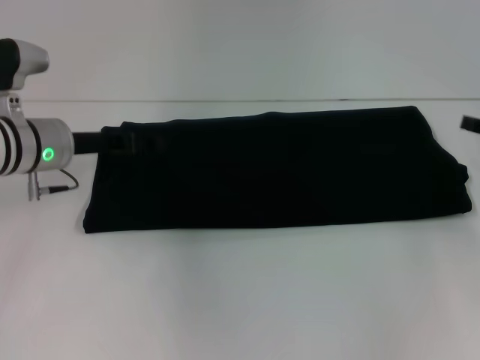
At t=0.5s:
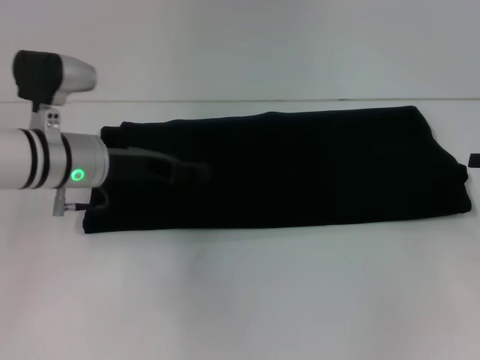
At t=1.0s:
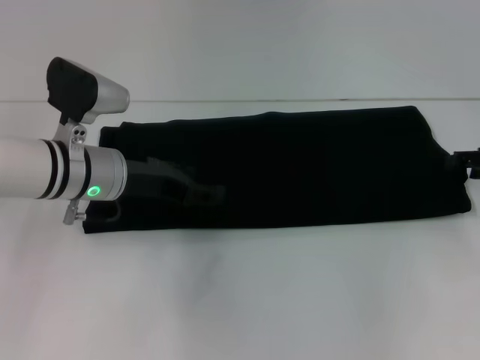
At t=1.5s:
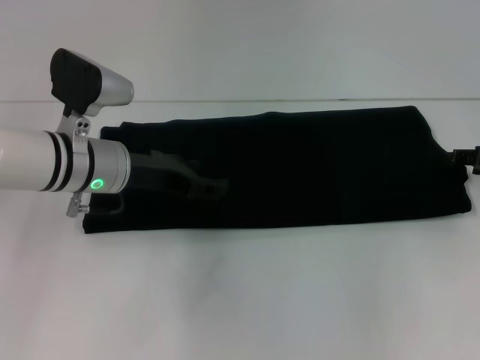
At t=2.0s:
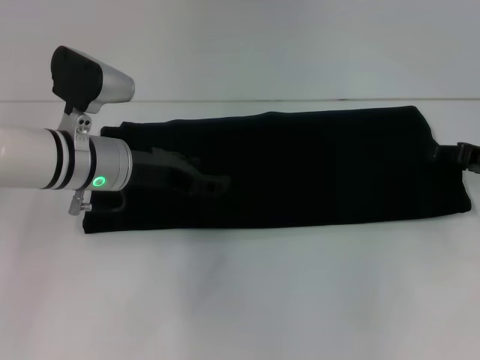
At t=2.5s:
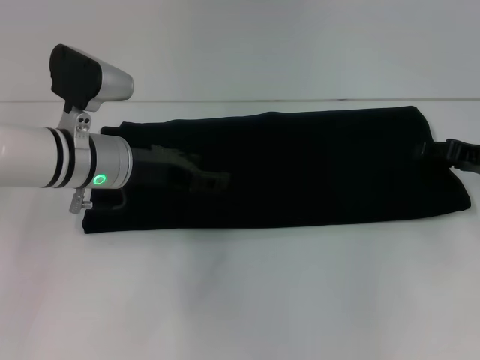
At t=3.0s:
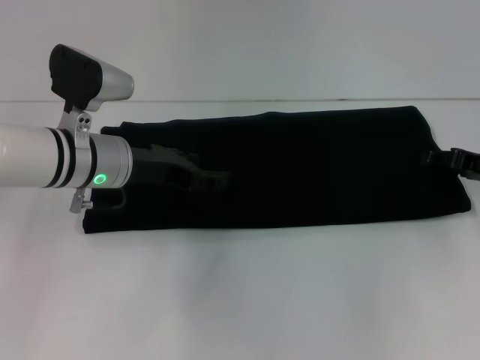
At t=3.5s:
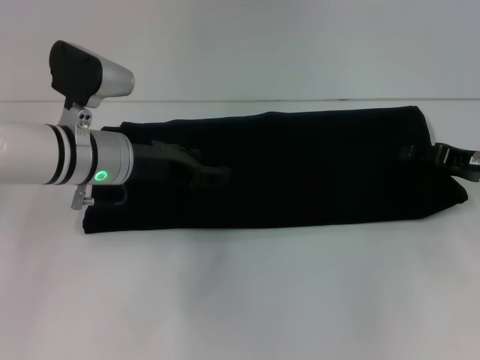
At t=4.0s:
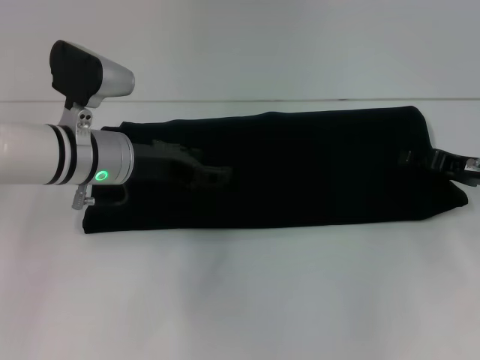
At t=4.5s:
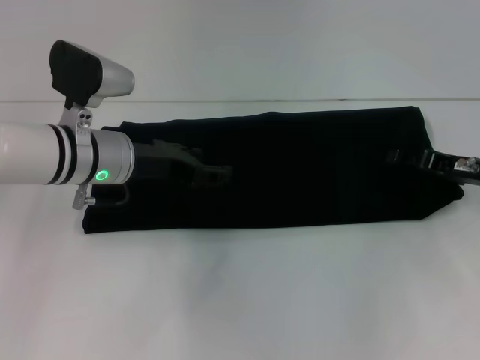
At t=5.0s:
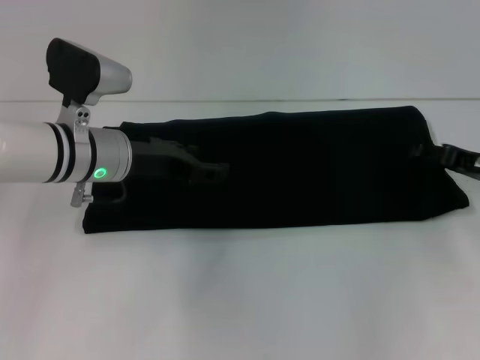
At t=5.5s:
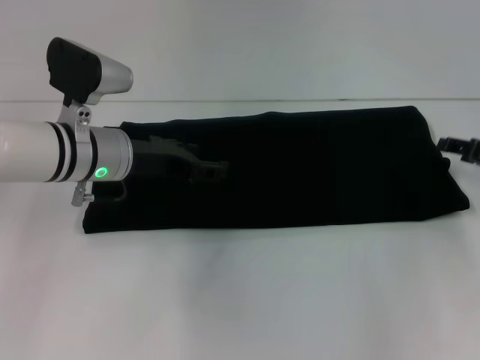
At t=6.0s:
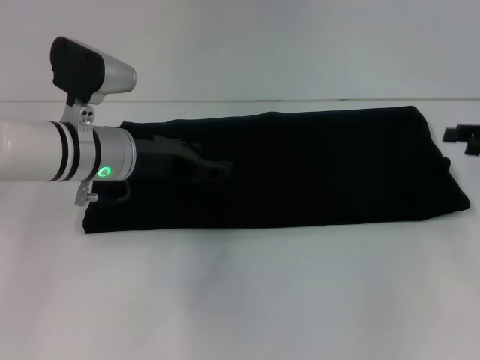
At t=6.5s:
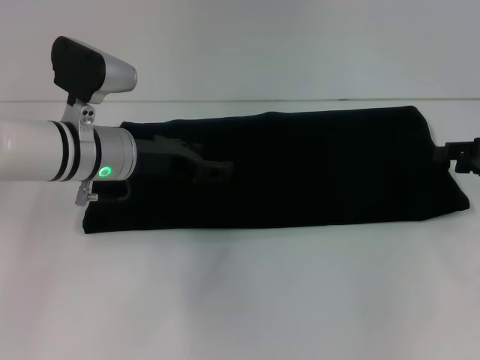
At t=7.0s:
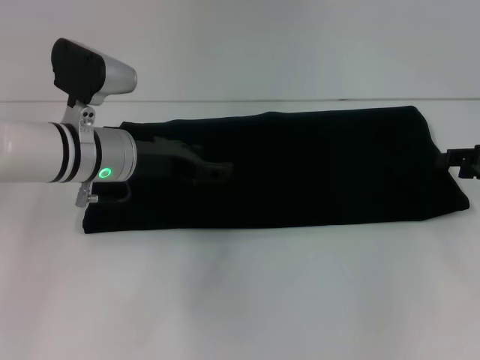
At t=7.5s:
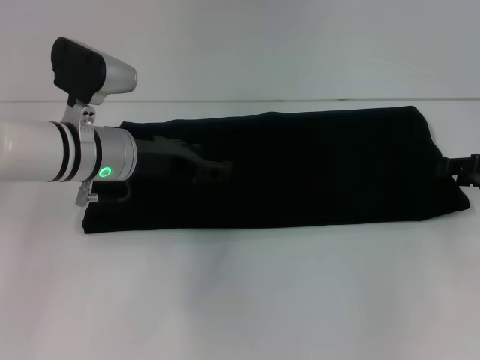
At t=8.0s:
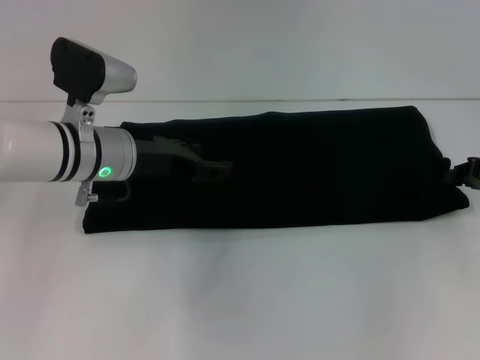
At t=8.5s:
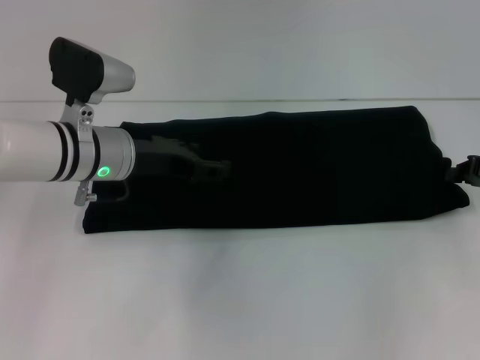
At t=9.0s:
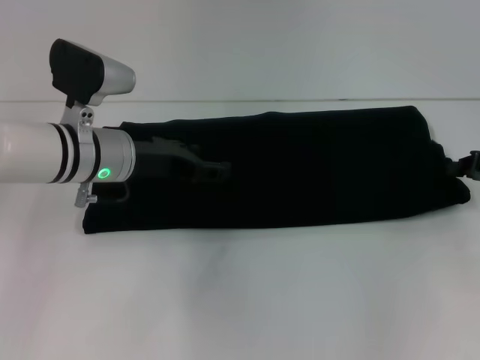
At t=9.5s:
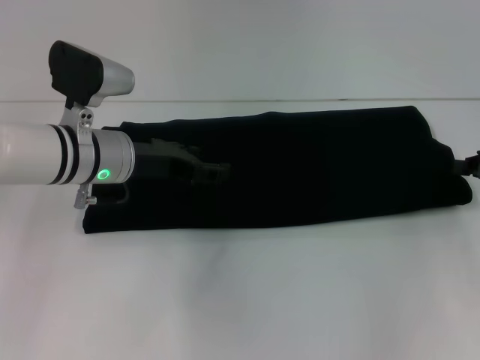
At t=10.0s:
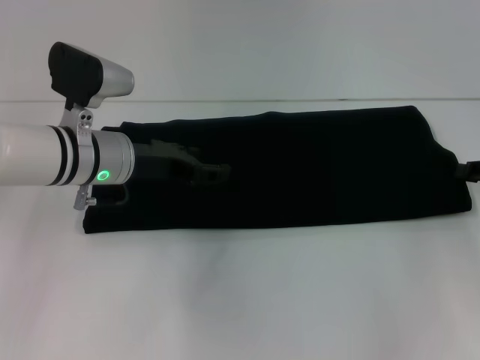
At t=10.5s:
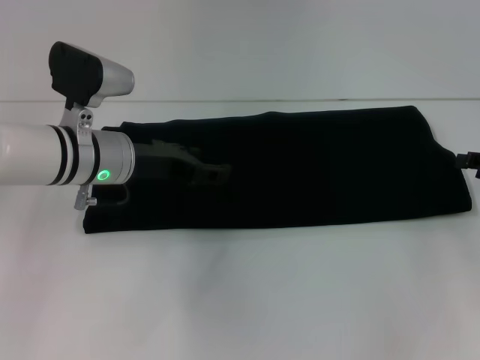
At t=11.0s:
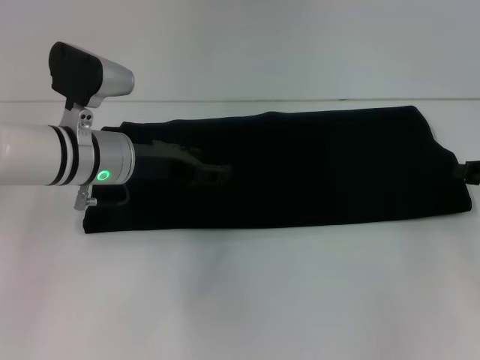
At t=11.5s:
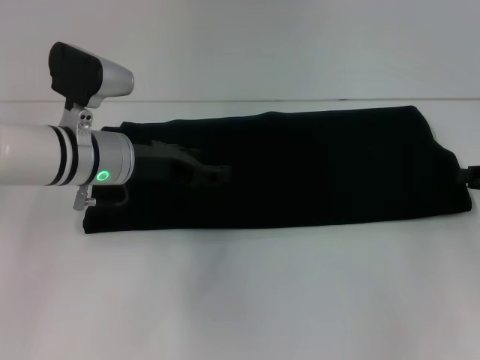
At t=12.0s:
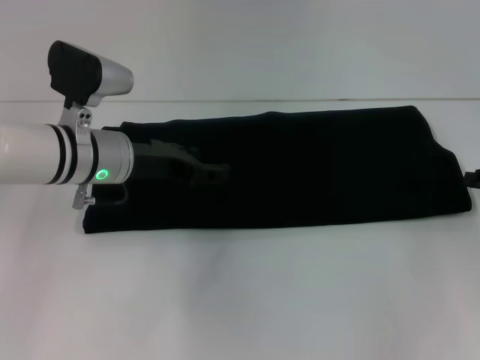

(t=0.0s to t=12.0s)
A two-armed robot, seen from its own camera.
t=0.0s - t=2.0s: The left gripper moves to the right, about 5 cm.
t=2.0s - t=4.0s: The grippers make only small movements.
t=4.0s - t=6.0s: The right gripper is displaced to the right by roughly 5 cm.
t=6.0s - t=12.0s: The grippers stay close to where they were, moving slightly.

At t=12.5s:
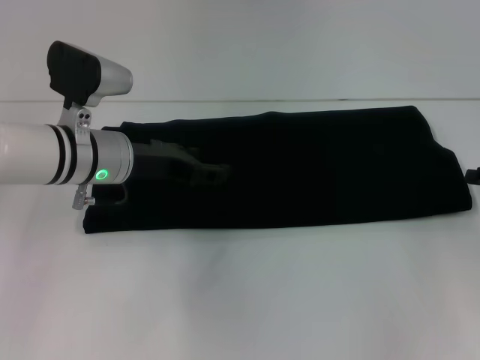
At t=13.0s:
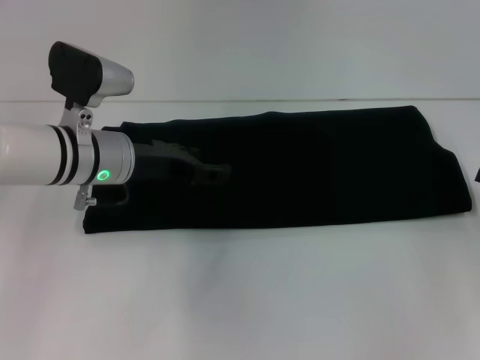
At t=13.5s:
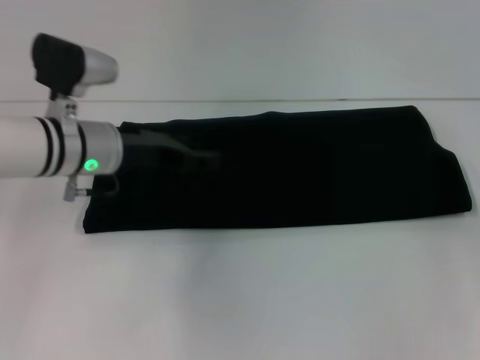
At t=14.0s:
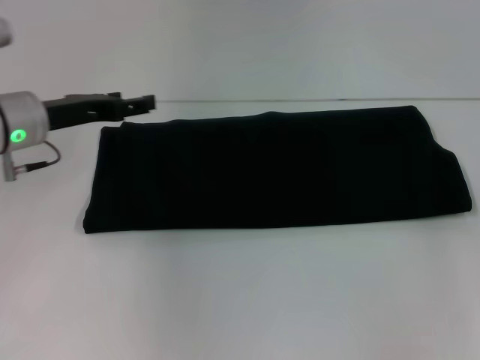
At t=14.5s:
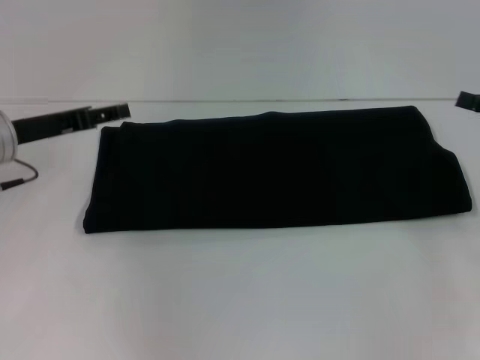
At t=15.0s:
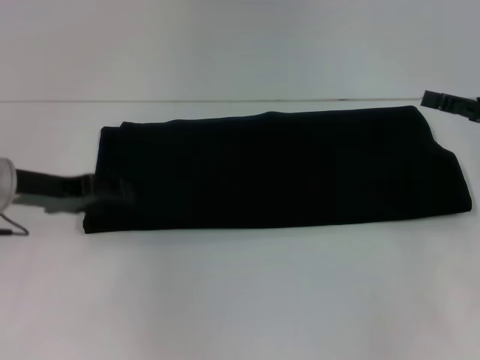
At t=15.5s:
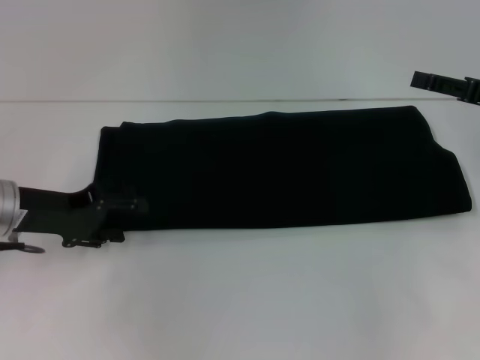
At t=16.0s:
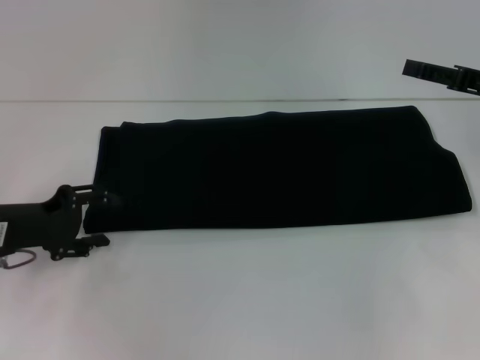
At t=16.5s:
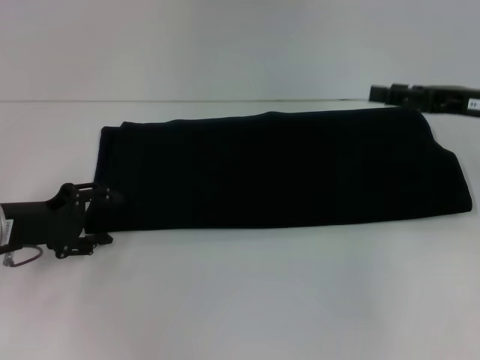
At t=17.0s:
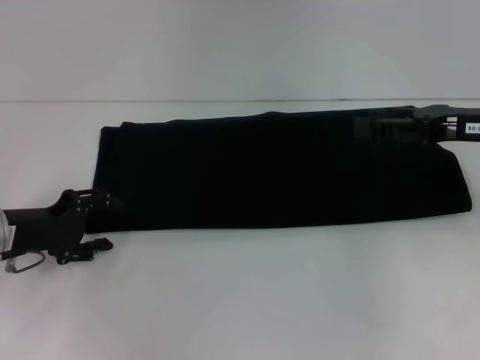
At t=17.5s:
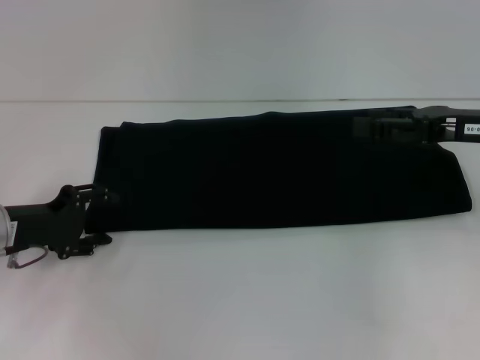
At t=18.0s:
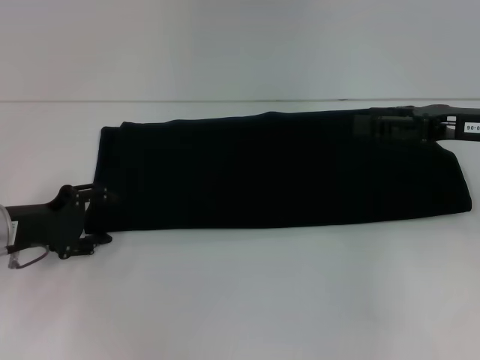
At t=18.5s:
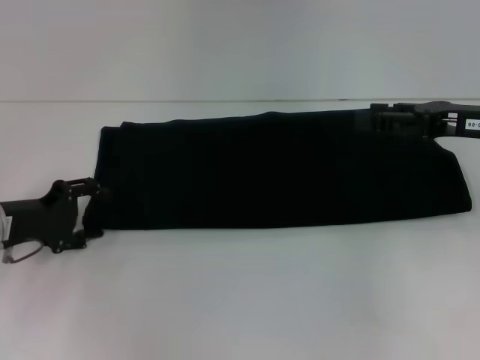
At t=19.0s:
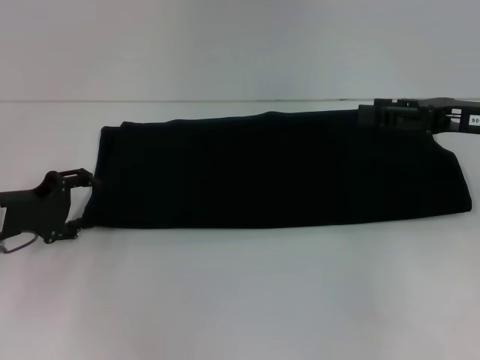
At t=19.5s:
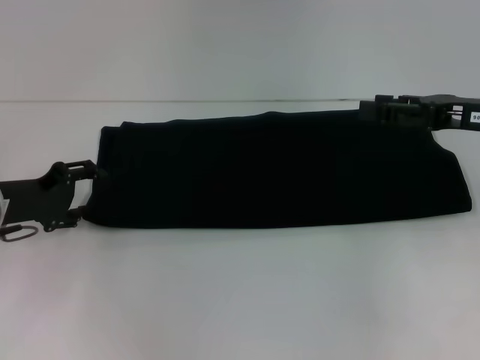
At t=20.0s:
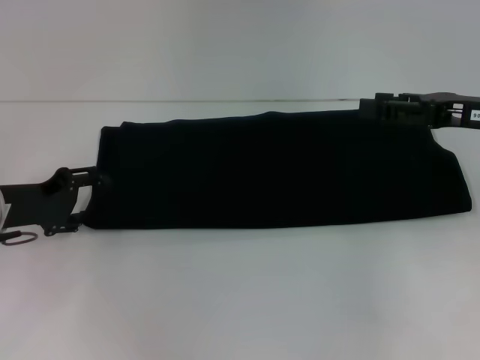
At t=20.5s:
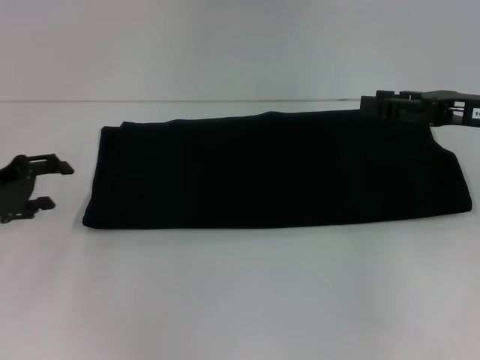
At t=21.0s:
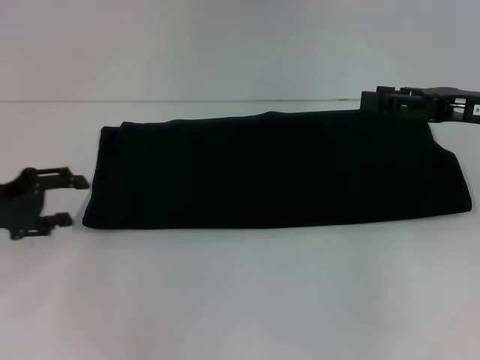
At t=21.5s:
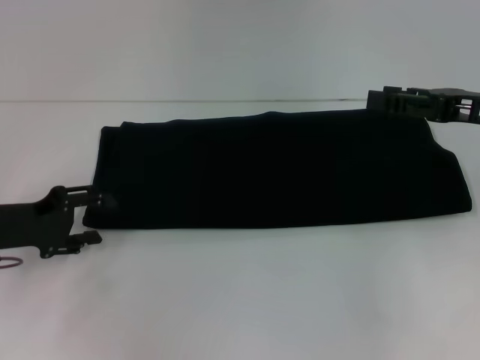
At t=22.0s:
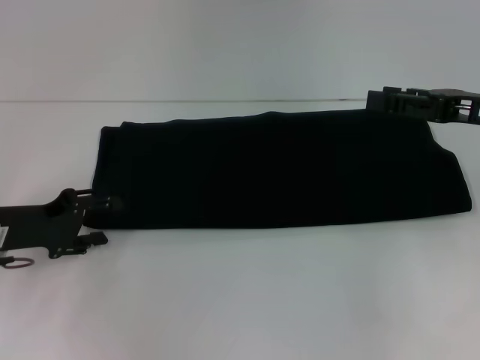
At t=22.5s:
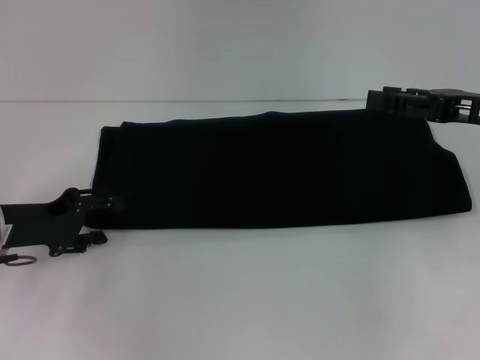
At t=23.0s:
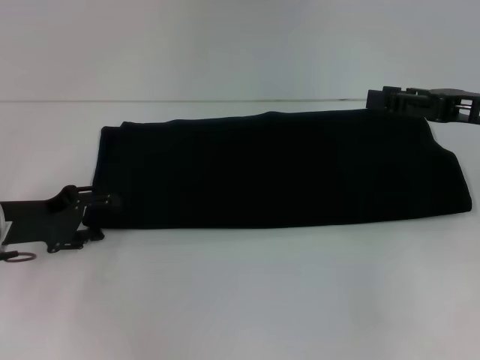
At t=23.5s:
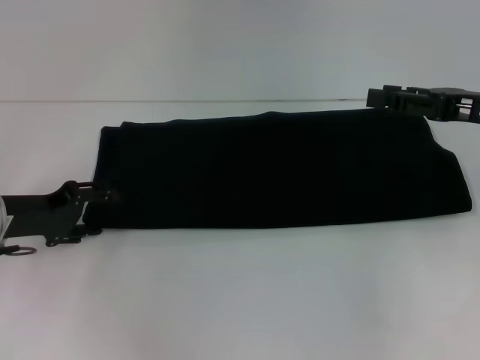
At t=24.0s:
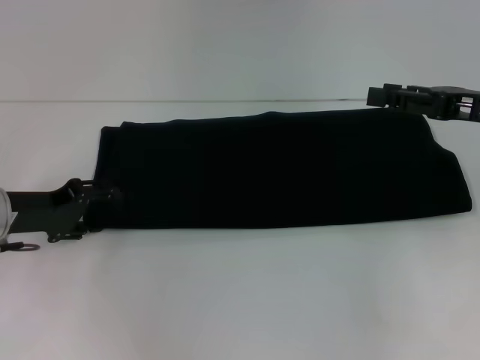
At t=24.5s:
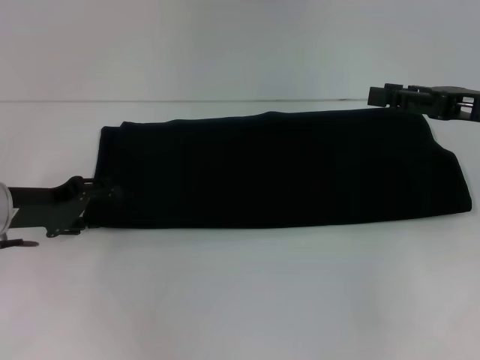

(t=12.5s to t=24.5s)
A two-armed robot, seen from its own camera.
t=12.5s - t=14.5s: The right gripper is displaced upward by approximately 5 cm, and opens, while the left gripper heads to the left, covering roughly 10 cm.
t=14.5s - t=16.5s: The left gripper travels downward and backward by approximately 10 cm. Meanwhile the right gripper goes approximately 5 cm to the left.
t=16.5s - t=18.5s: The grippers stay close to where they were, moving slightly.
t=18.5s - t=20.5s: The left gripper ends up roughly 5 cm from where it was.
t=20.5s - t=24.5s: The grippers move only a little.

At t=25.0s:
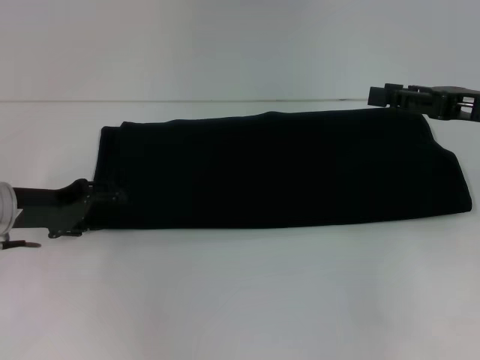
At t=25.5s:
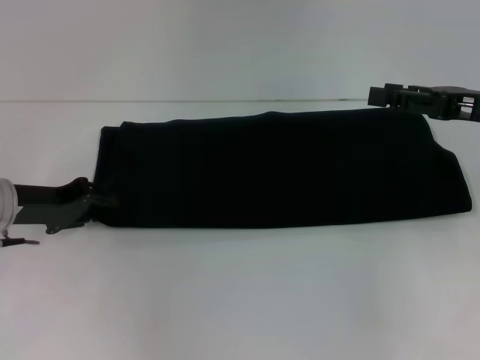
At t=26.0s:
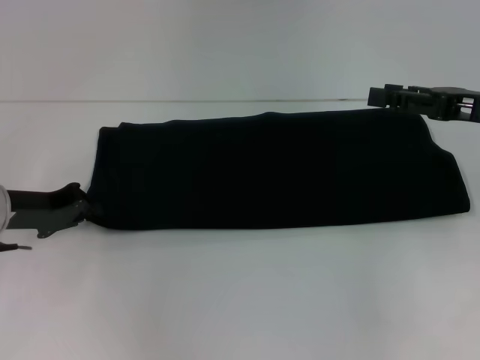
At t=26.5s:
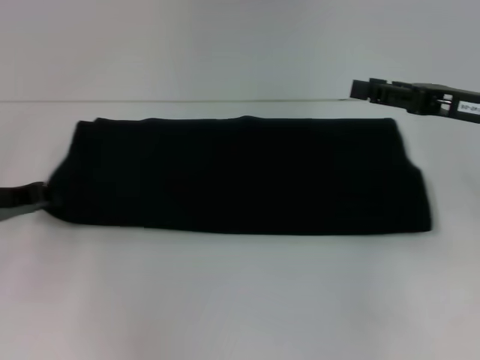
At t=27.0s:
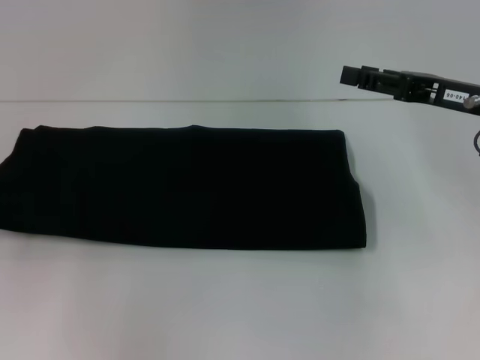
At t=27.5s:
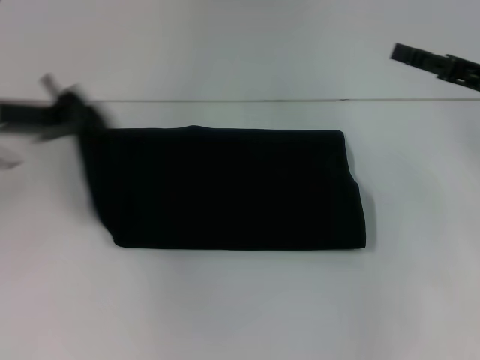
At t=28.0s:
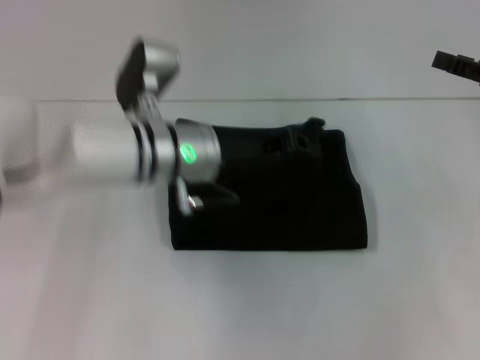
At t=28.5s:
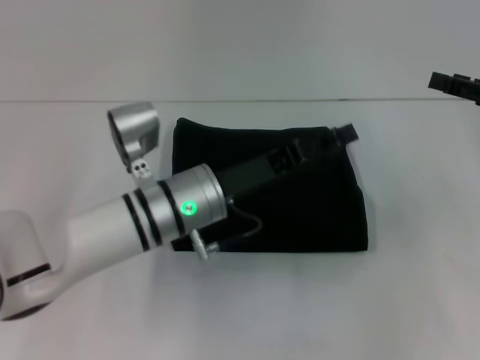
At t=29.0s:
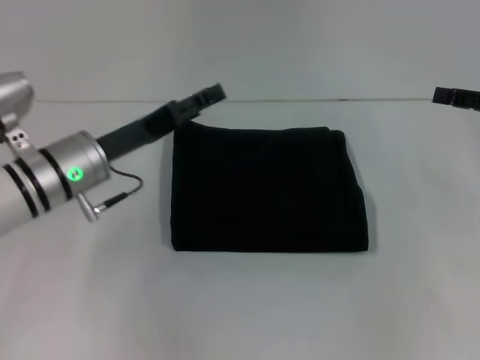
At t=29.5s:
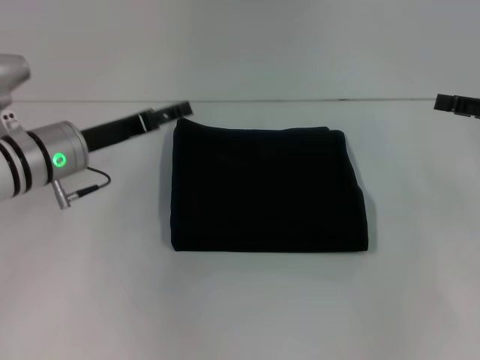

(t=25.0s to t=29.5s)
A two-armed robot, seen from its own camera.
Step, t=25.0s - t=28.5s: Fold the clothes with your left hand.
t=25.0s - t=27.0s: The left gripper is displaced to the left by some 10 cm, and closes up.
t=27.0s - t=29.5s: The left gripper is displaced to the right by some 15 cm, and opens up; the right gripper shifts roughly 10 cm to the right.
